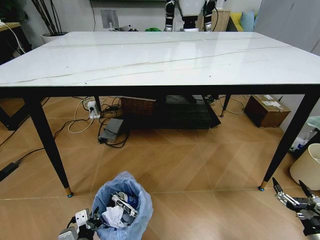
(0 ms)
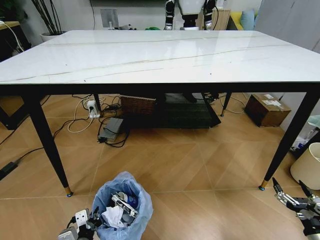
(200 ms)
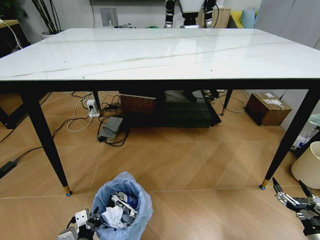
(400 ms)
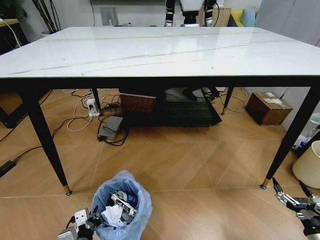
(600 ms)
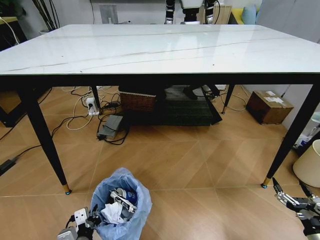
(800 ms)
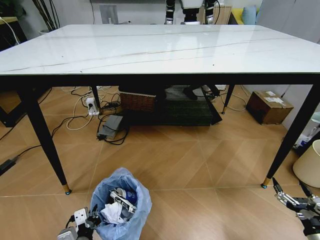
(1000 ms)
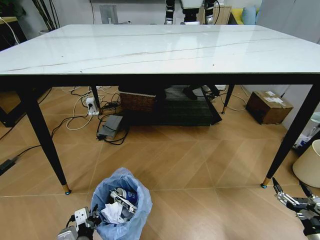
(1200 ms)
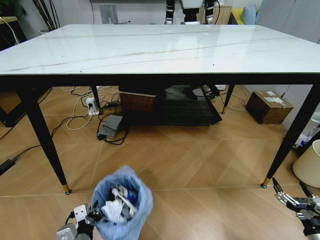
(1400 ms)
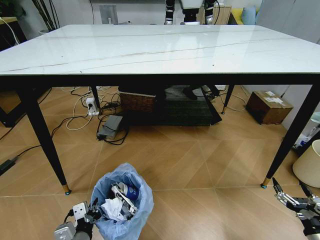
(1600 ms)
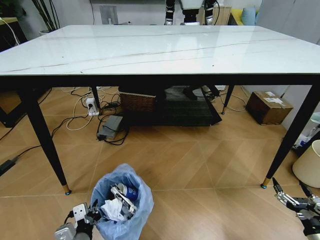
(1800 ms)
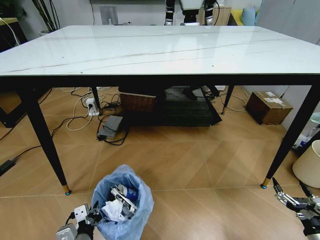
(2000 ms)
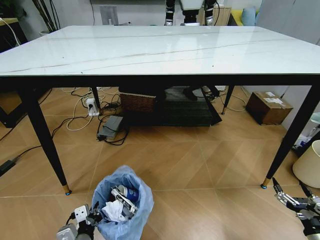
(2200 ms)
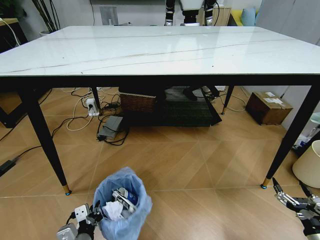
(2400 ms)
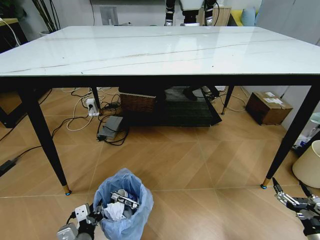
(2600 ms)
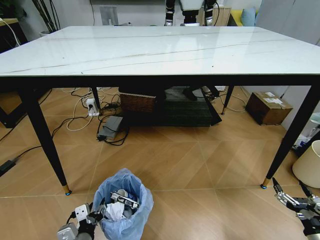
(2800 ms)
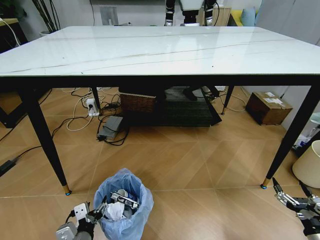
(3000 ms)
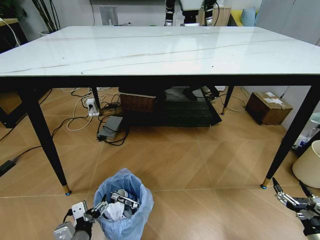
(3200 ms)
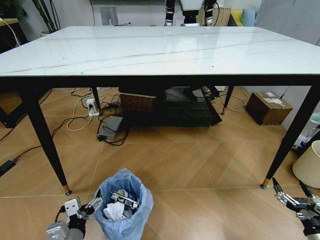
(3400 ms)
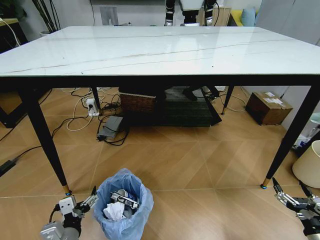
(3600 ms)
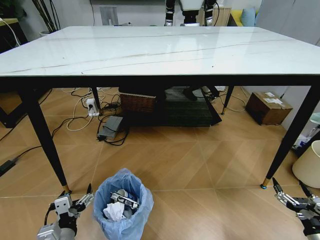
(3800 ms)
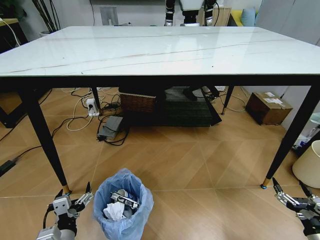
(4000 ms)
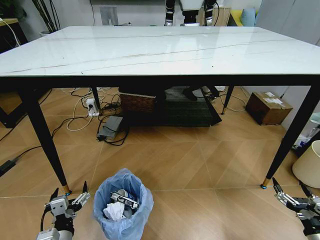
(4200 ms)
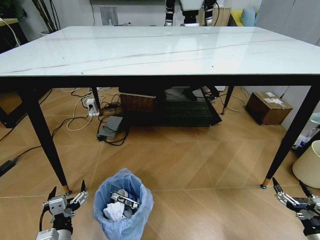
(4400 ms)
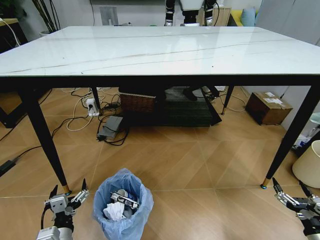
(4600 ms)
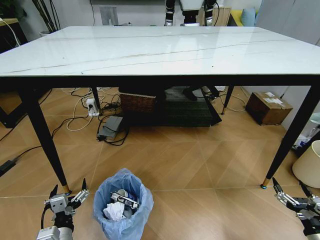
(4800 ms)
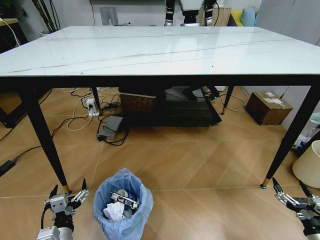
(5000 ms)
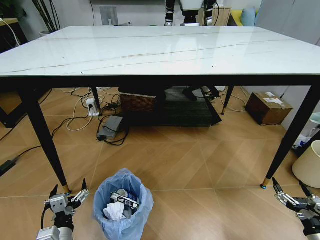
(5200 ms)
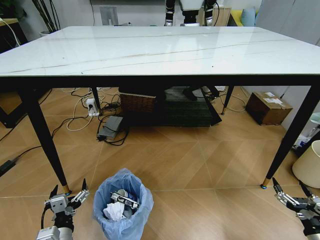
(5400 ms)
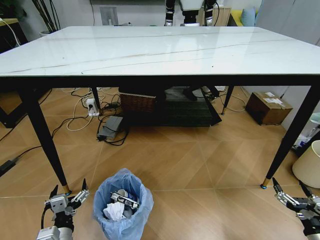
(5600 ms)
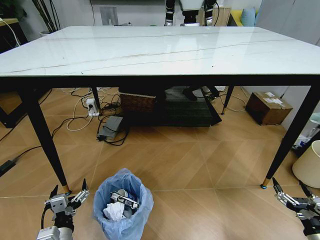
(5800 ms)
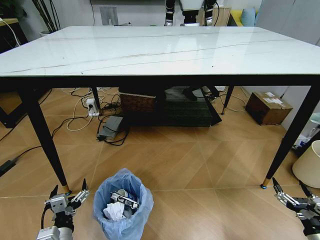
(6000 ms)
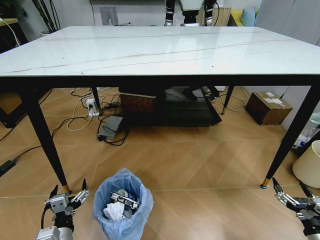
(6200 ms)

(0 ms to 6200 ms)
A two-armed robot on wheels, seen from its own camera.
Task of the whole recording: Pick up the trash bin and place the trash from the table into it.
1600 ms - 3200 ms: The left gripper opens up.
4600 ms - 6200 ms: The two grippers keep their place.

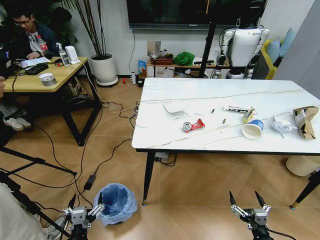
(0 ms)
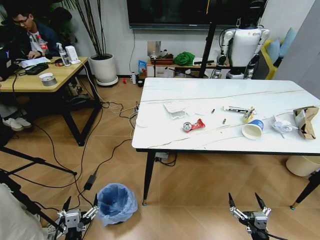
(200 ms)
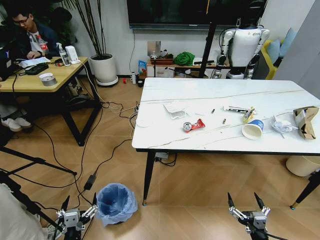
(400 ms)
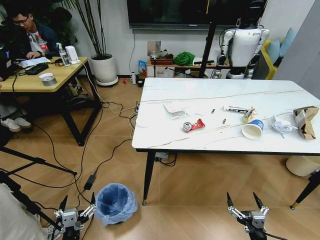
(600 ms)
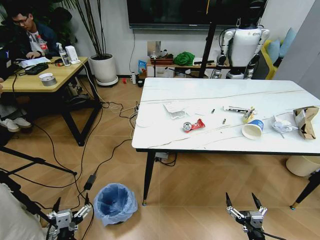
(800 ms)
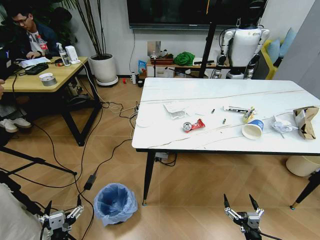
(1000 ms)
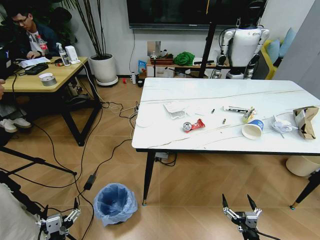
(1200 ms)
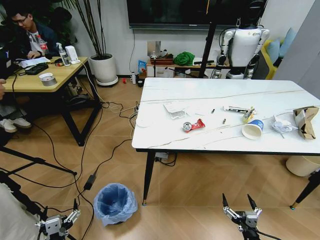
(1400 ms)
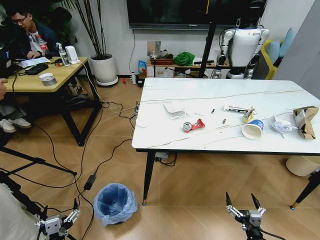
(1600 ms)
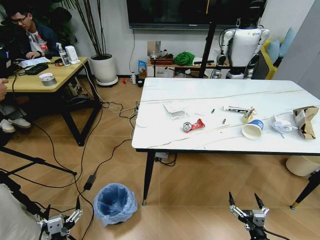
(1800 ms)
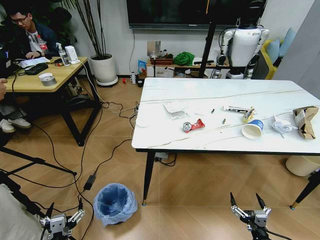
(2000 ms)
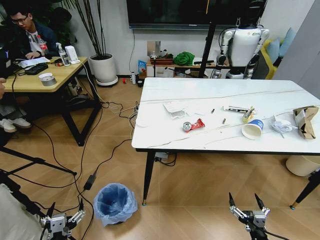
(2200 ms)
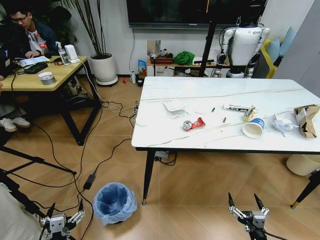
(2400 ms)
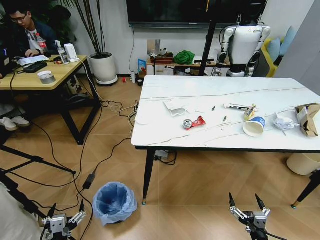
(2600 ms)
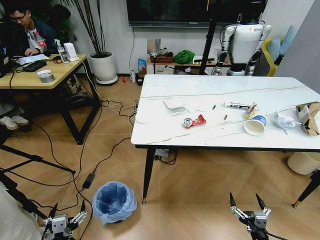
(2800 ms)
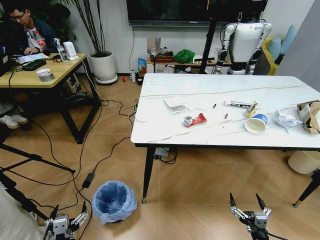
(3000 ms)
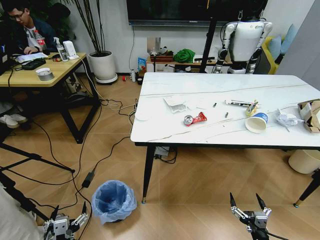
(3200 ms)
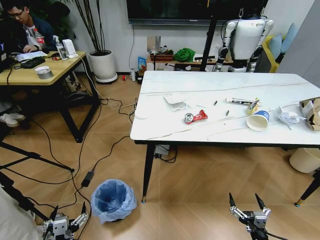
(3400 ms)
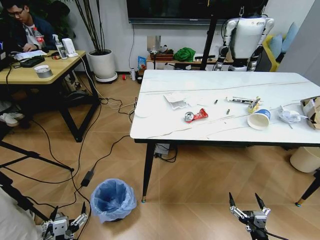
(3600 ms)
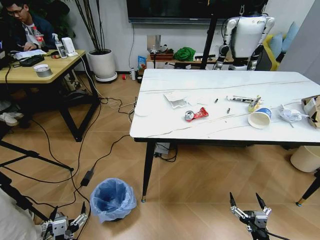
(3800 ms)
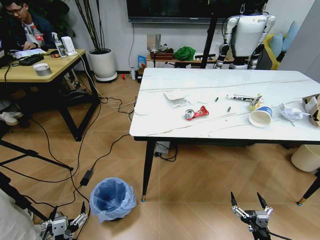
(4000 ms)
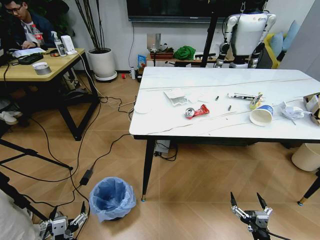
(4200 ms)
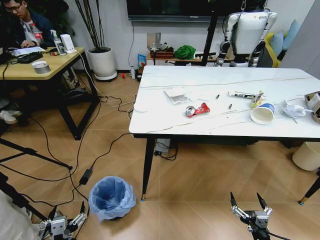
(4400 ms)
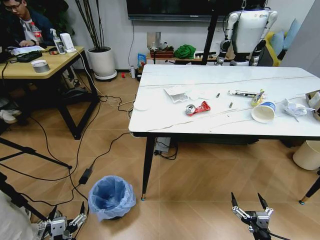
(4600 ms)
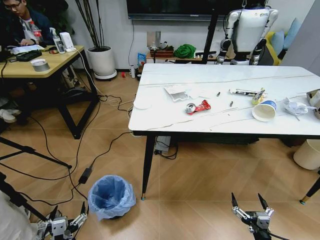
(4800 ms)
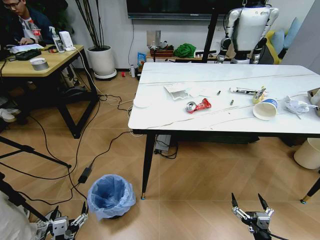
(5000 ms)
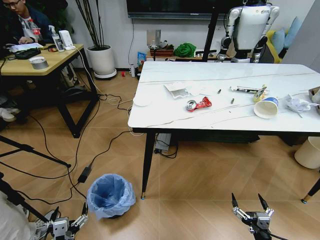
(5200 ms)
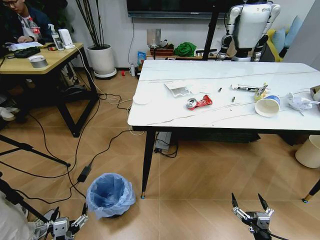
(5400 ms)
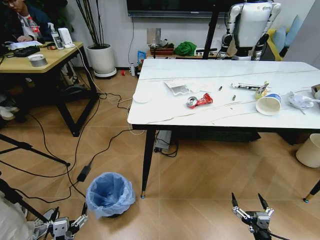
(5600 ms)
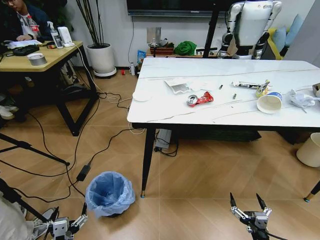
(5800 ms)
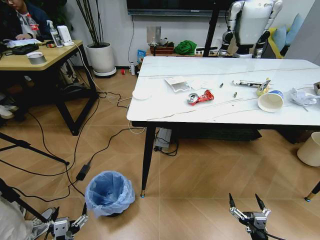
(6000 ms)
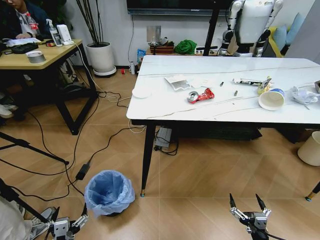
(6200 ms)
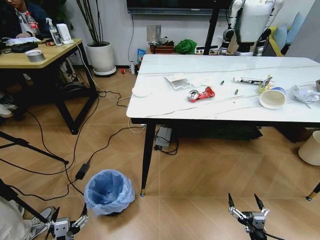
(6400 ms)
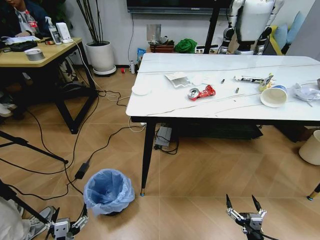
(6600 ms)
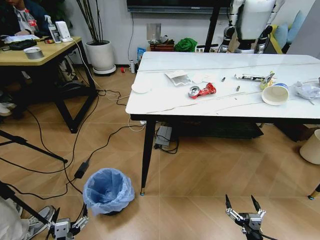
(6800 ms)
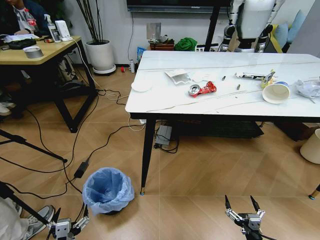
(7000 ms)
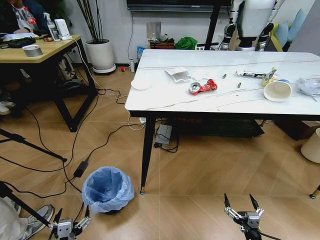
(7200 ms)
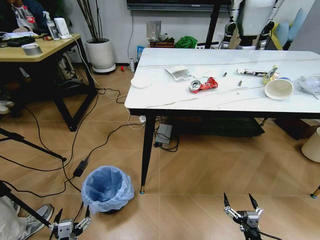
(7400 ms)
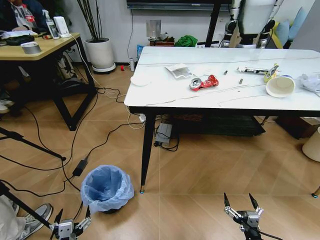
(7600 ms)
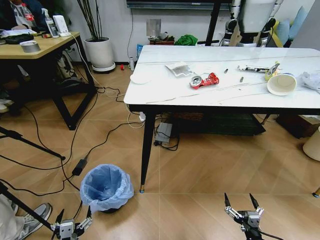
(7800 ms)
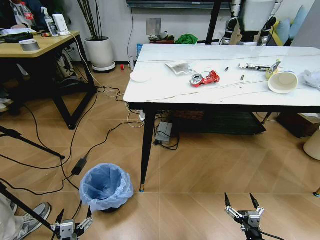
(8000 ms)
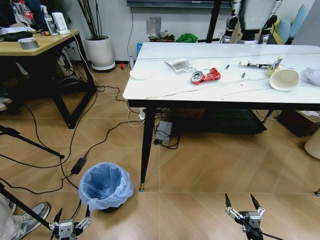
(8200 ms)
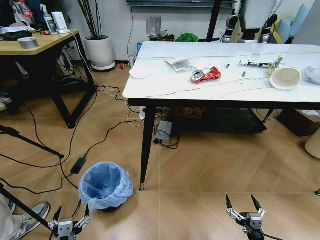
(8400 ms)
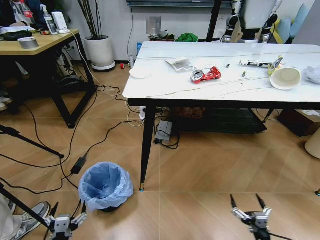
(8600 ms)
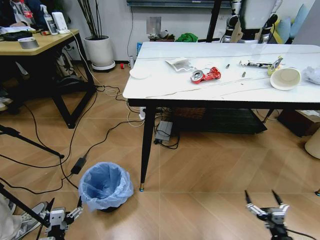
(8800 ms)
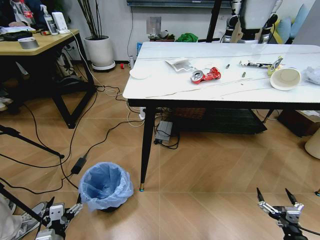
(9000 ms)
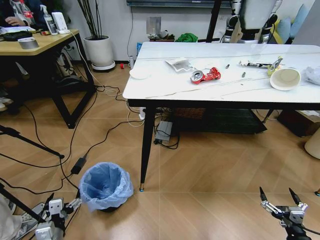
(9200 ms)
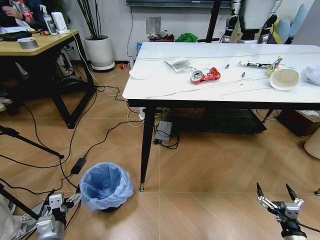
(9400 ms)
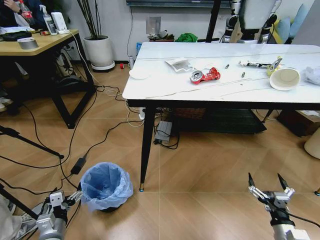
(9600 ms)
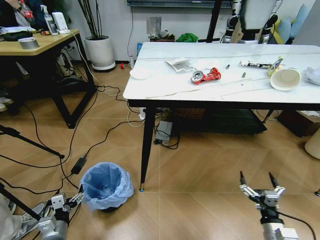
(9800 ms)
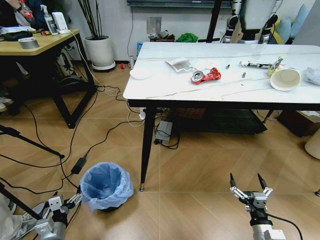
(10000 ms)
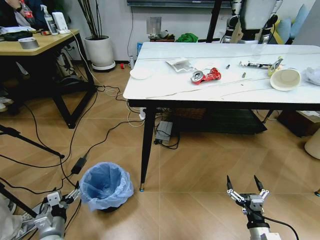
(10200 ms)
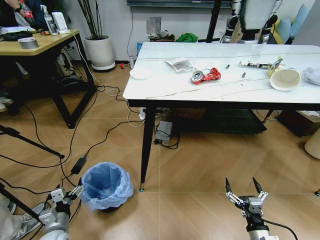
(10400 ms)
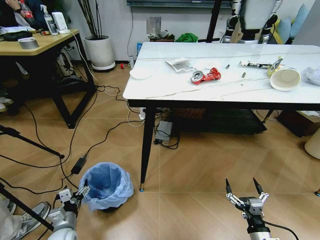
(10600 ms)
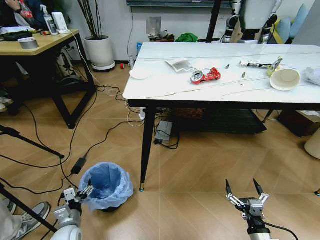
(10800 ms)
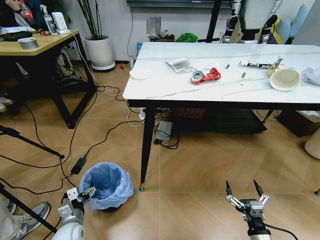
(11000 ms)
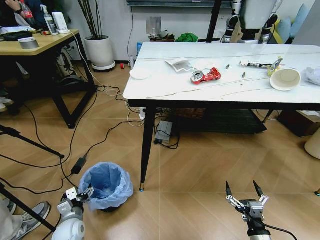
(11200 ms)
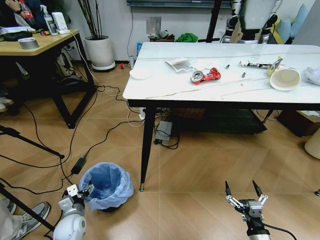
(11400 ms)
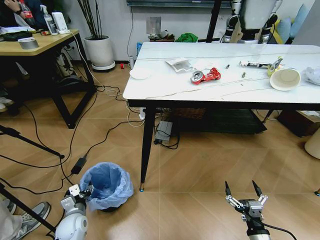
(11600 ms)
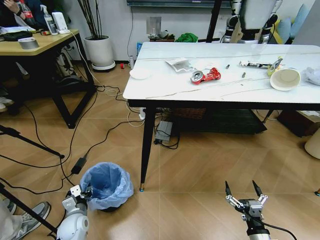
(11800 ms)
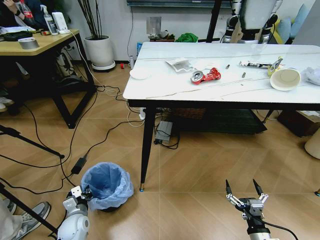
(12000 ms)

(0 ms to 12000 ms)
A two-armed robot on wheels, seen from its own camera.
Task of the whole recording: Pick up the trash bin and place the trash from the table into it.
7600 ms - 9000 ms: The right gripper goes approximately 10 cm to the right. Meanwhile the left gripper shifts some 5 cm forward.
9000 ms - 10400 ms: The left gripper travels forward by approximately 10 cm, while the right gripper moves to the left, about 10 cm.
10400 ms - 12000 ms: The left gripper heads forward, covering about 5 cm, and closes up.

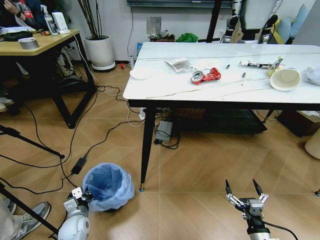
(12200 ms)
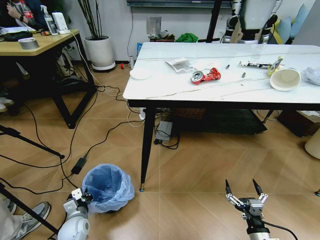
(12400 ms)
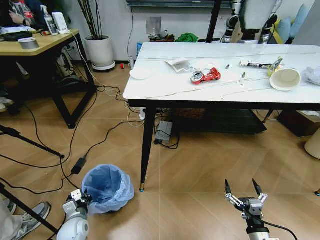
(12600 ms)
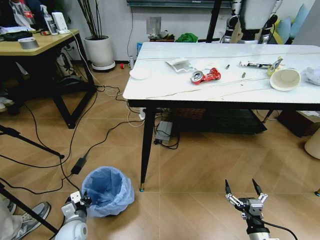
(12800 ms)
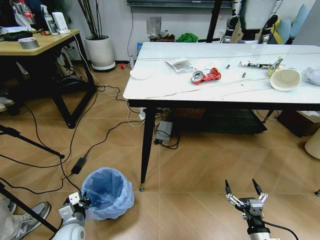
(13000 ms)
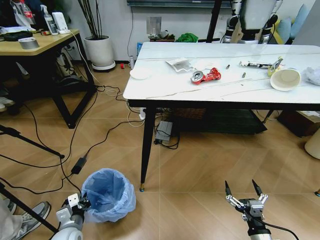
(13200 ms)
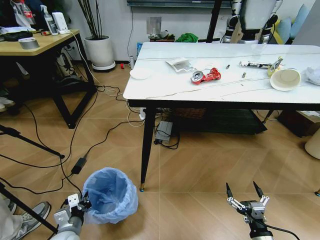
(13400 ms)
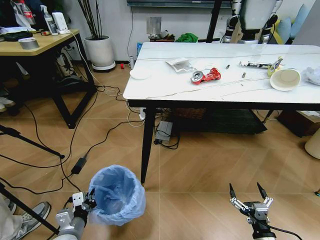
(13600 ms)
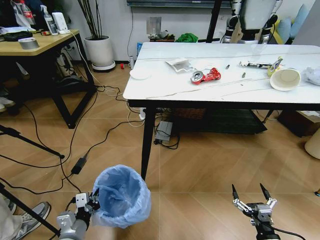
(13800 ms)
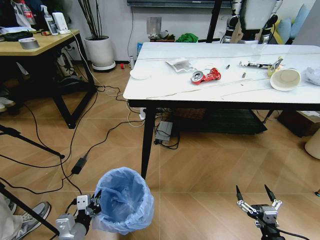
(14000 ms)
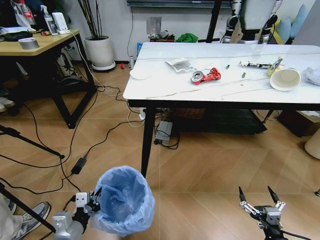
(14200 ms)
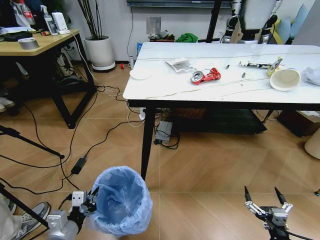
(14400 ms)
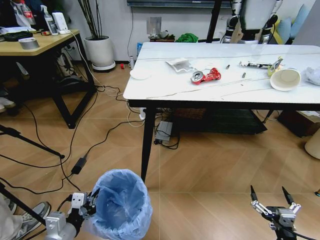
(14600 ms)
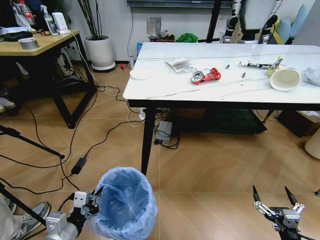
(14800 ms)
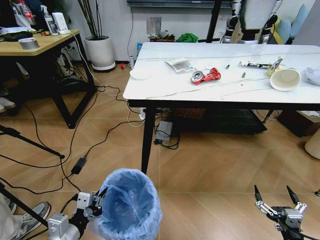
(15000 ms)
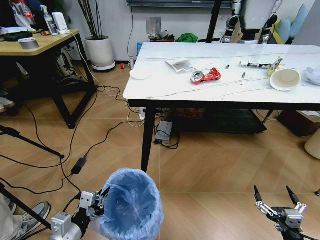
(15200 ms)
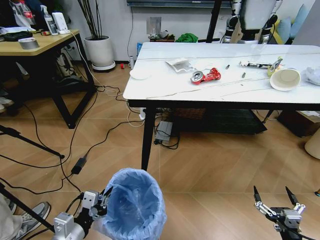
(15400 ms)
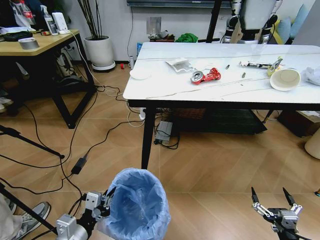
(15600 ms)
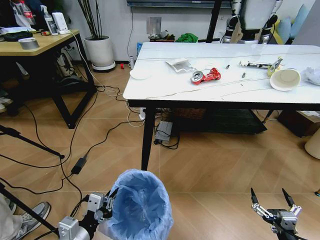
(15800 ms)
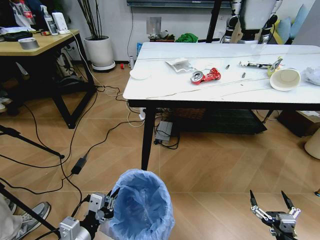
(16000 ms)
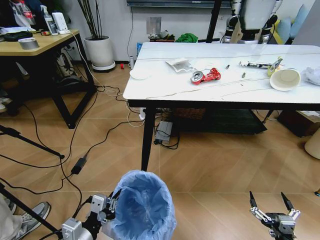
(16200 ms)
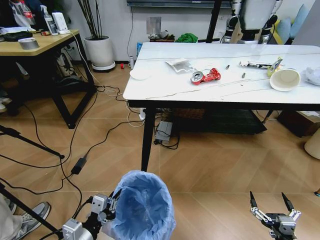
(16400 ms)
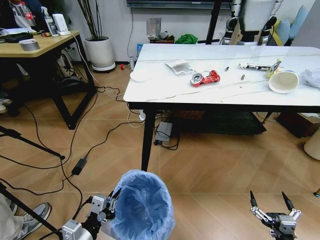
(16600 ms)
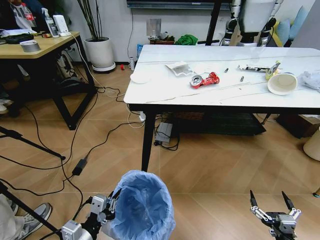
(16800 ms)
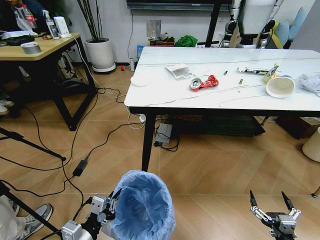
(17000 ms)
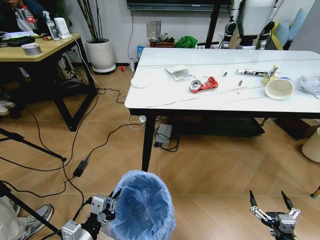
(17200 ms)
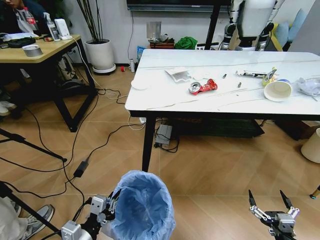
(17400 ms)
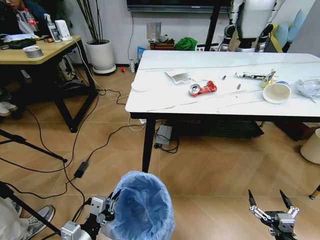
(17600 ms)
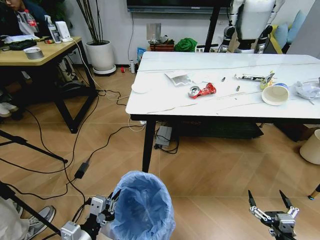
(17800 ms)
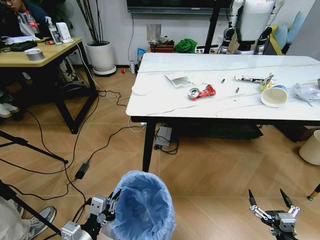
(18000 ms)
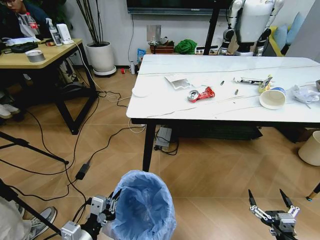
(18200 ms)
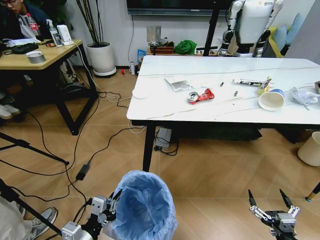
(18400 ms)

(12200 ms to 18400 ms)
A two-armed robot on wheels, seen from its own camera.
Task of the whole recording: Pick up the trash bin and place the trash from the table into it.
12200 ms - 13800 ms: The left gripper travels upward and backward by roughly 15 cm.
13800 ms - 15400 ms: The right gripper moves approximately 5 cm. Meanwhile the left gripper is displaced upward by about 10 cm.
